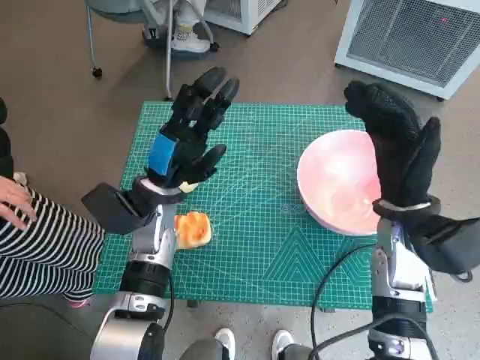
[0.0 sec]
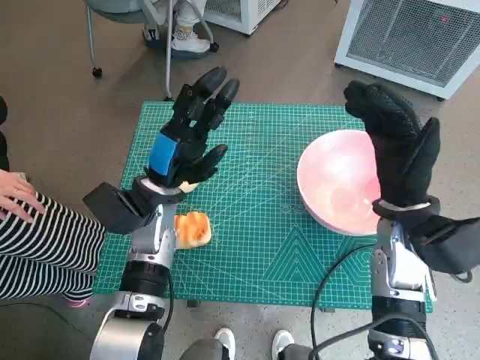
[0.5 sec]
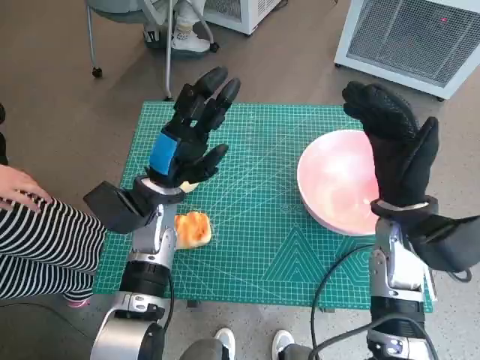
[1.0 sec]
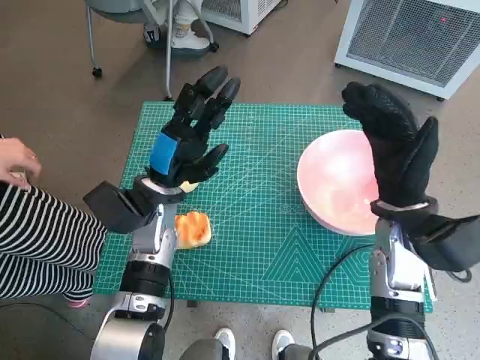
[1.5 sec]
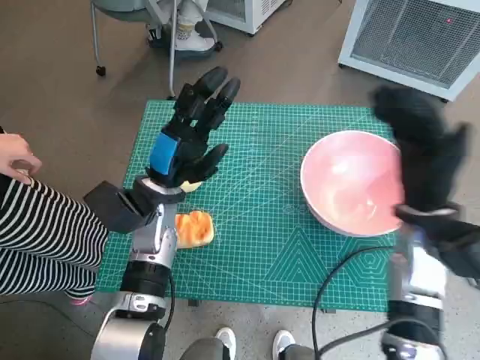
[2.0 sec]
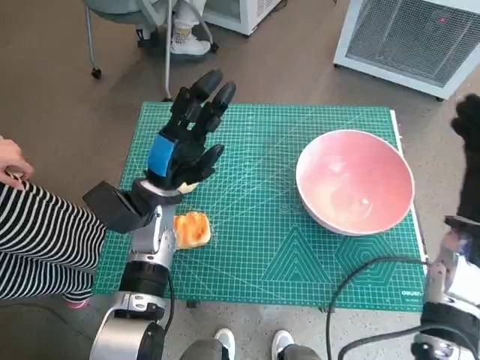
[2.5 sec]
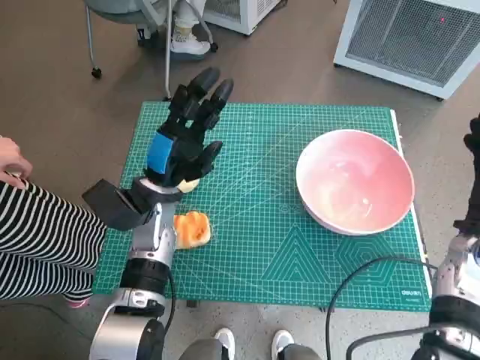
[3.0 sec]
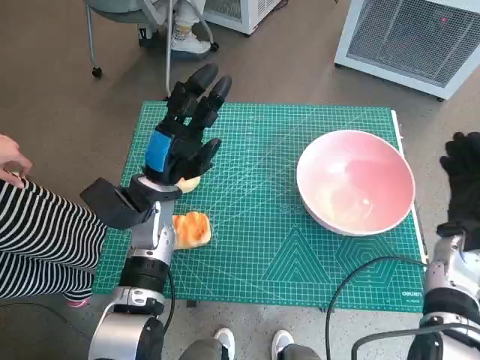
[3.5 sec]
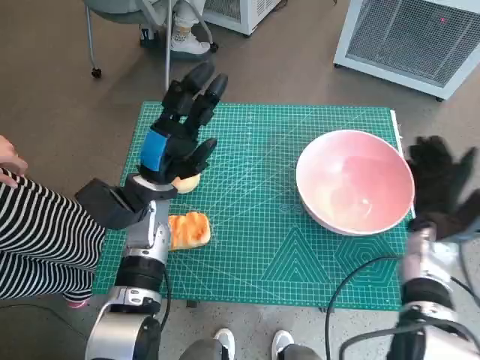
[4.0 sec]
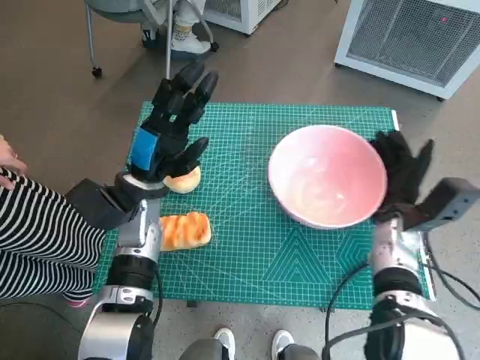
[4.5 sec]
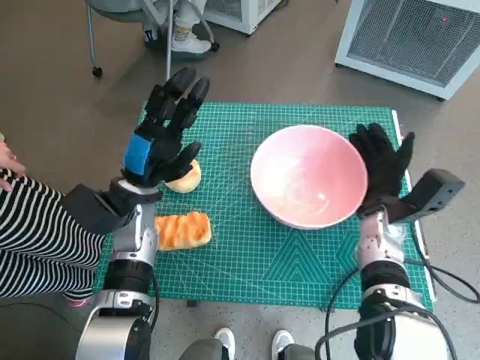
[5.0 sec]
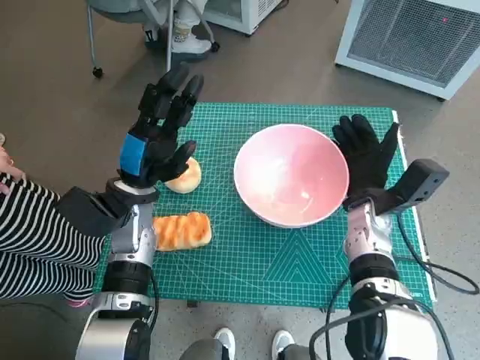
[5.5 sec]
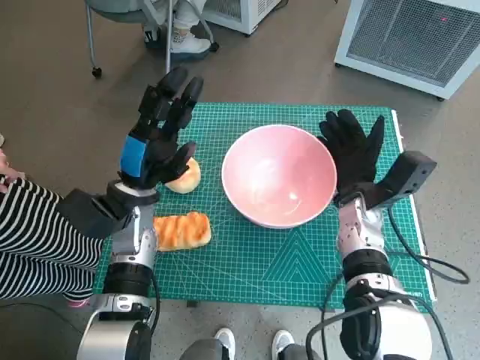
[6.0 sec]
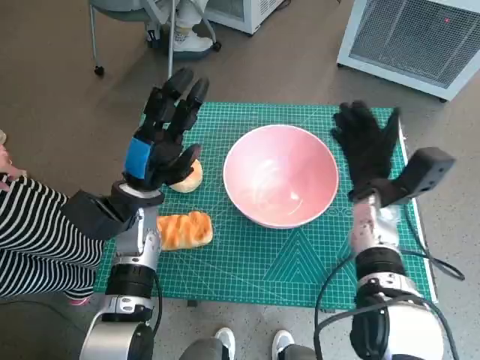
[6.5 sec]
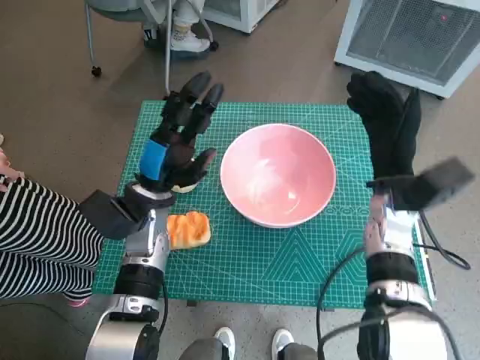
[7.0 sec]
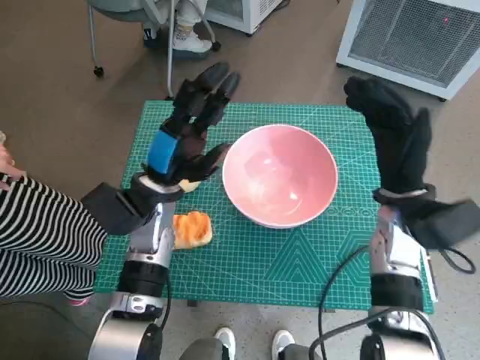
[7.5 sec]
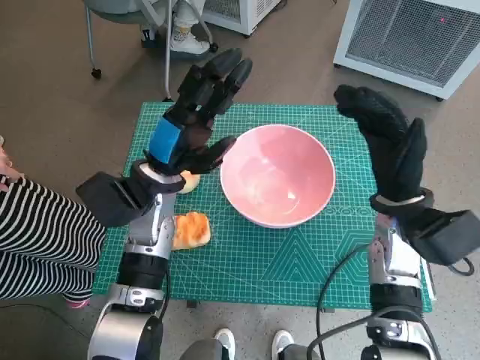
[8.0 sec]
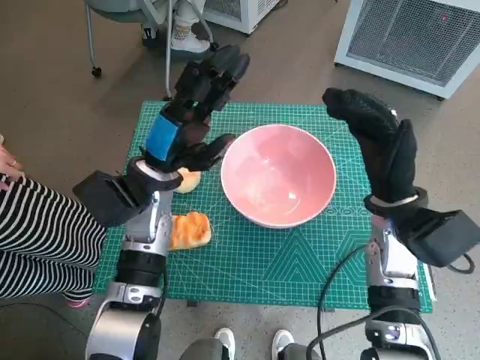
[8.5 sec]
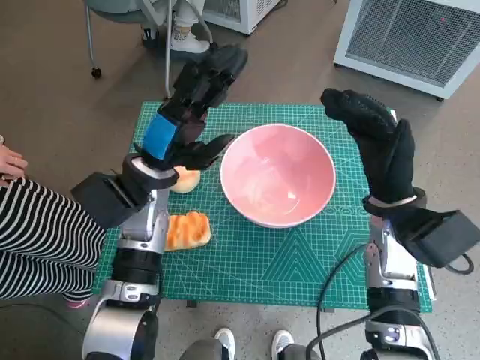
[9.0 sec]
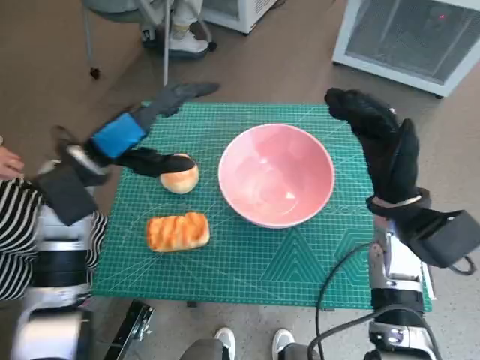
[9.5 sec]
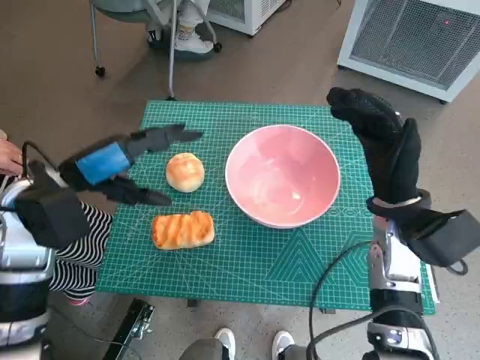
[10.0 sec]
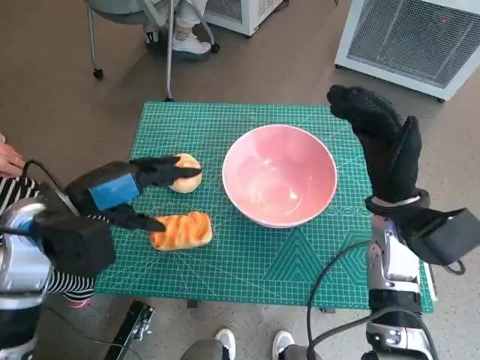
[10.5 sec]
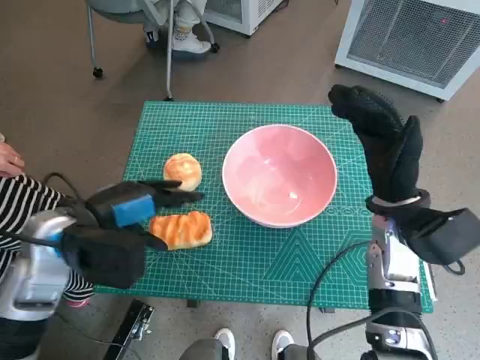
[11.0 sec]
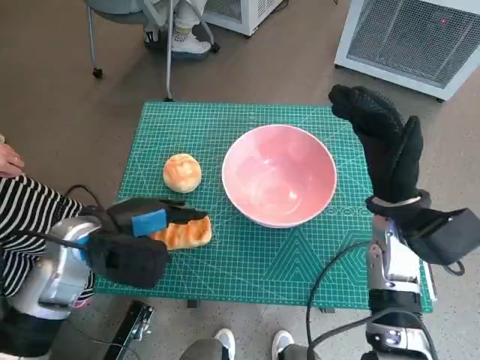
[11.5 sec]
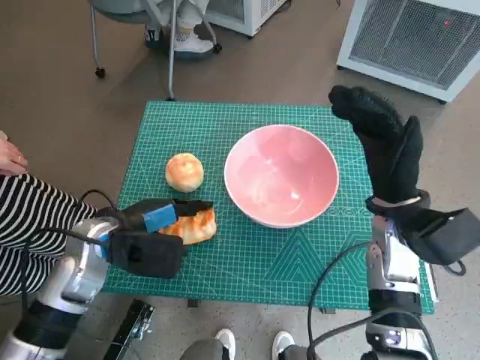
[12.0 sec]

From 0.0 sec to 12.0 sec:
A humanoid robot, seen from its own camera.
Task of the whole recording: Push the bowl into the center of the table and put the bread into the bowl.
Step, from 0.0 sec to 6.5 sec: Move the pink bowl to the center of table with right hand.
From 2.0 sec to 4.0 sec: The right hand is displaced downward and to the right by roughly 10 cm.
From 4.0 sec to 6.0 sec: The right hand is displaced to the left by some 10 cm.
From 6.0 sec to 8.0 sec: The right hand is displaced upward by about 5 cm, while the left hand shifts by some 5 cm.
From 8.0 sec to 10.0 sec: The left hand shifts some 10 cm to the left and upward.
From 10.0 sec to 12.0 sec: The left hand travels downward by roughly 10 cm.

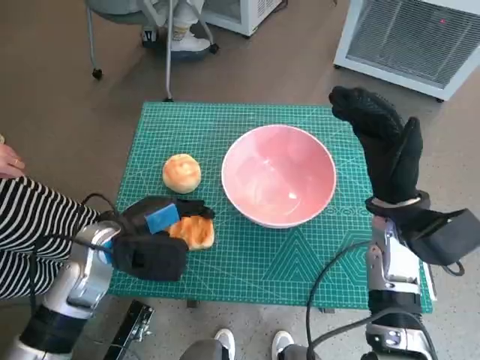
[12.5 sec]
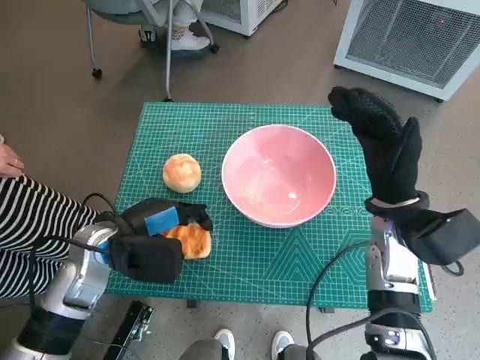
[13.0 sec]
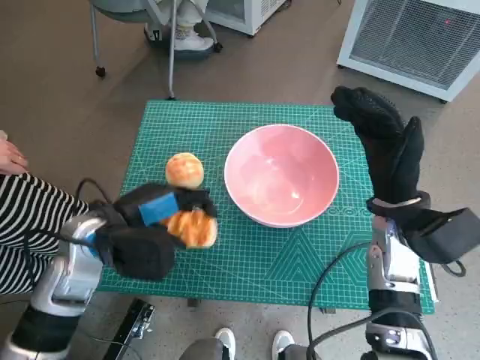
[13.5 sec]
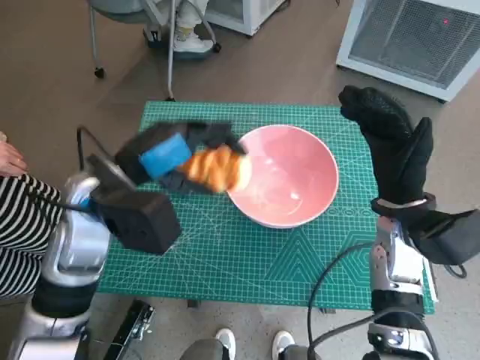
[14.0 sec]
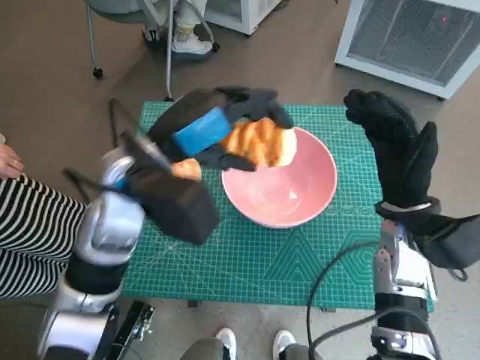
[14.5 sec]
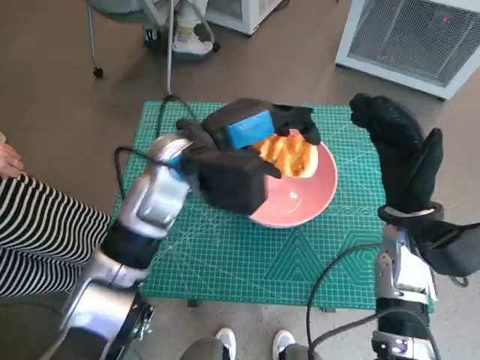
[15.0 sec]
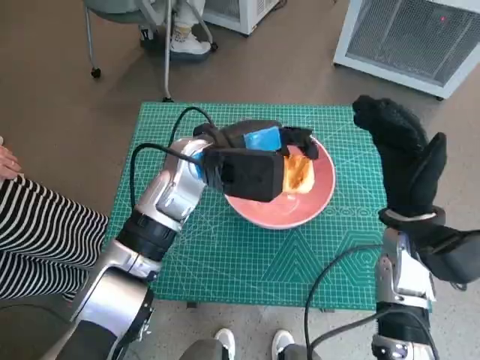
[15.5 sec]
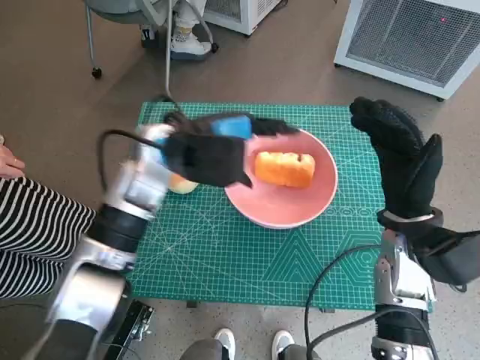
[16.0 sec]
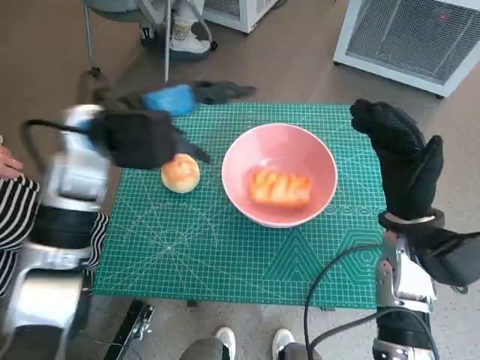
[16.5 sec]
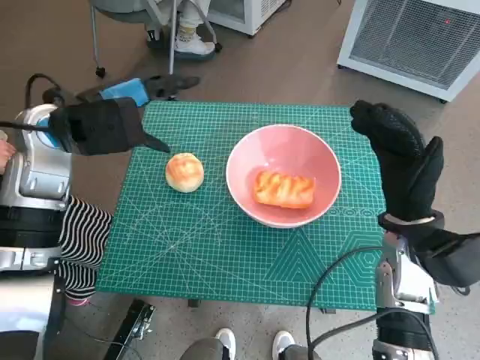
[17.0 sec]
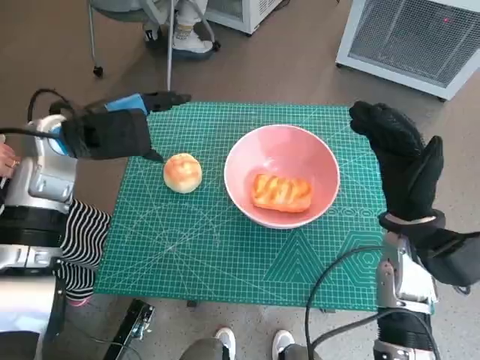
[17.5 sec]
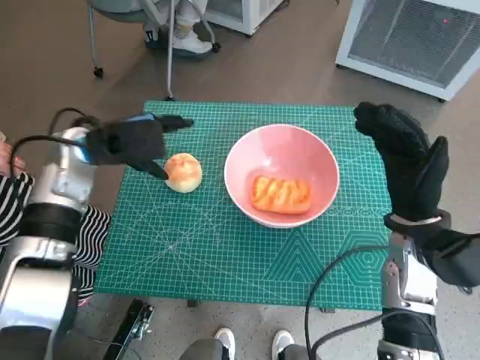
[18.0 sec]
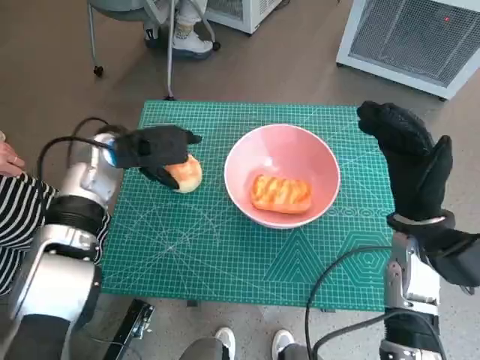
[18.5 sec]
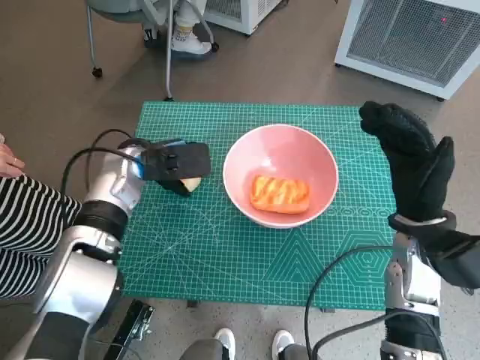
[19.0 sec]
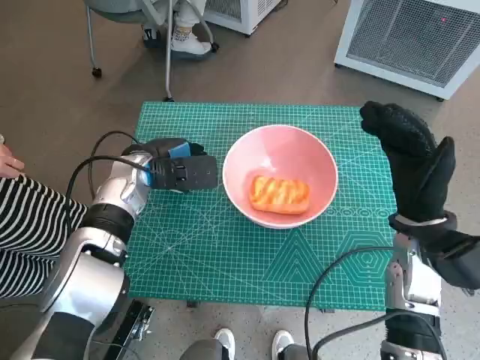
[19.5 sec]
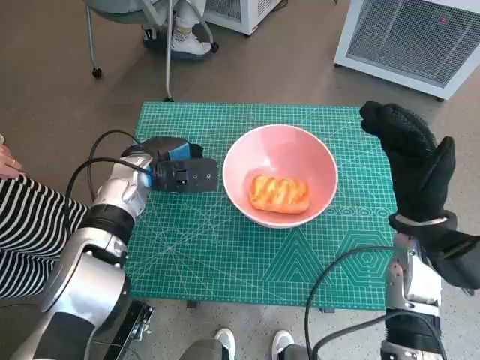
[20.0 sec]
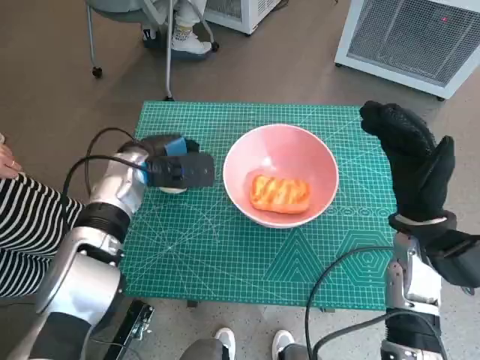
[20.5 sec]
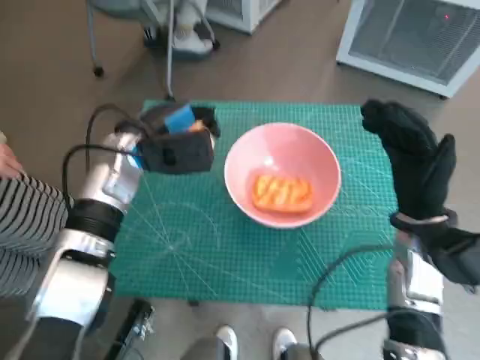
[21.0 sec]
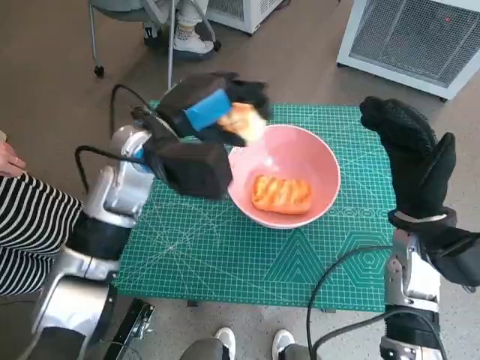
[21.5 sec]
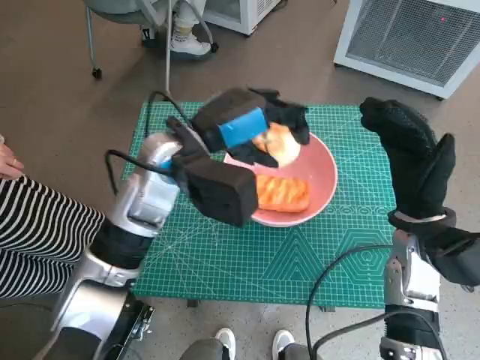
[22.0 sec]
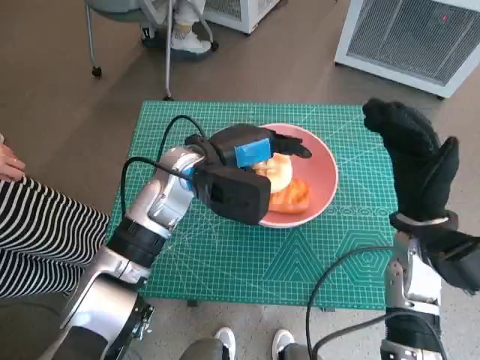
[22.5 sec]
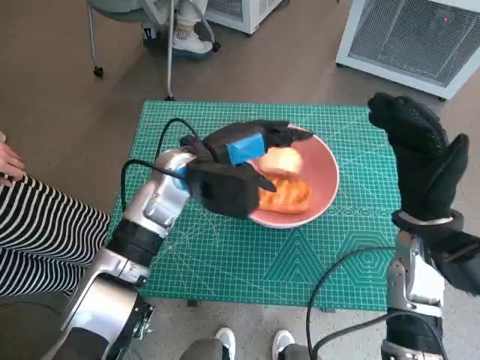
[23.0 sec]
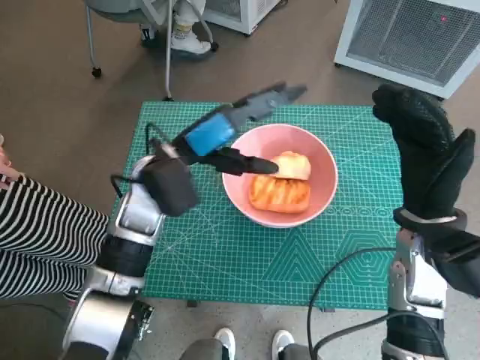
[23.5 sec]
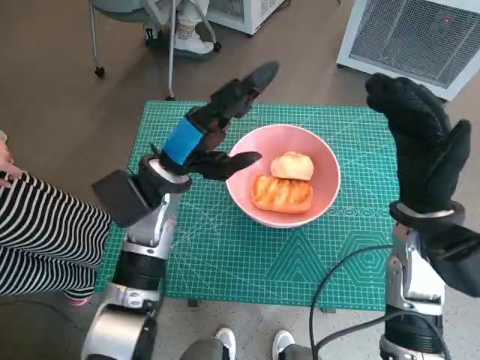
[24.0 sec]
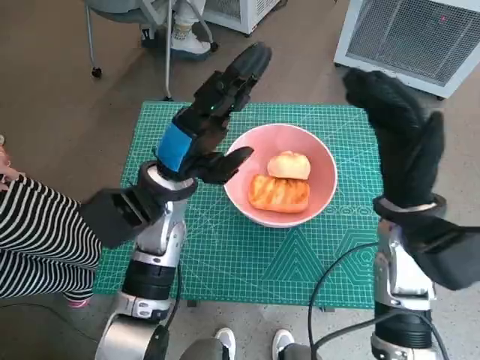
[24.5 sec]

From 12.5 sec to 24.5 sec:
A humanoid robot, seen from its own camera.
Task of the whole recording: Push the bowl into the center of the table and put the bread into the bowl.
Step, from 13.0 sec to 16.0 sec: Place the long bread in pink bowl with left hand.
Step, from 16.5 sec to 19.5 sec: Grasp the round bread with left hand.
Step, from 20.0 sec to 23.0 sec: Place the round bread in pink bowl with left hand.
From 12.5 sec to 14.5 sec: The left hand travels upward and to the right by about 15 cm.
From 14.5 sec to 16.5 sec: The left hand ends up roughly 5 cm from where it was.
From 16.5 sec to 18.5 sec: The left hand moves downward, some 10 cm.
From 18.5 sec to 20.5 sec: There are only small adjustments of the hands.
From 20.5 sec to 22.5 sec: The left hand is displaced to the right by roughly 10 cm.
From 22.5 sec to 24.5 sec: The right hand ends up roughly 5 cm from where it was.

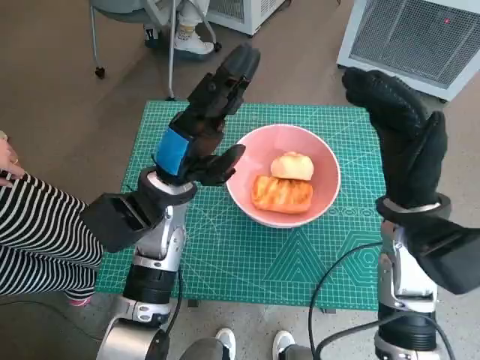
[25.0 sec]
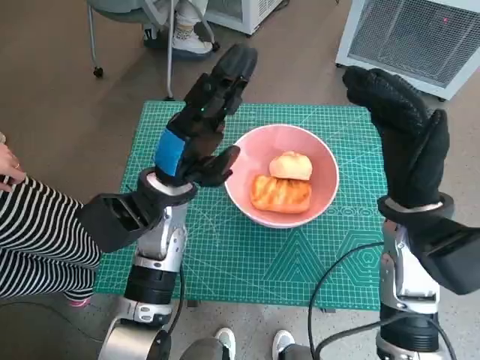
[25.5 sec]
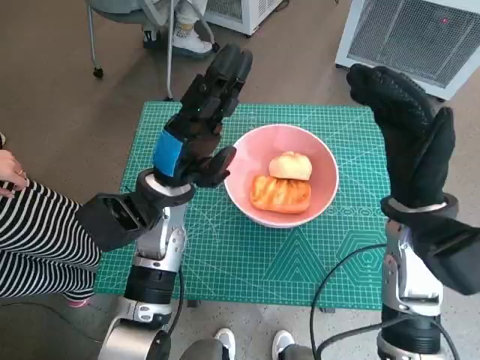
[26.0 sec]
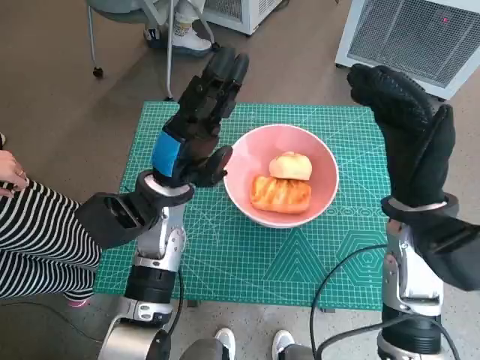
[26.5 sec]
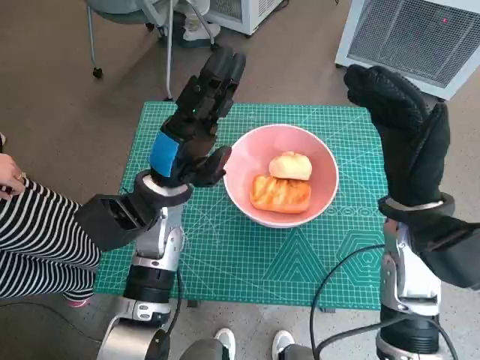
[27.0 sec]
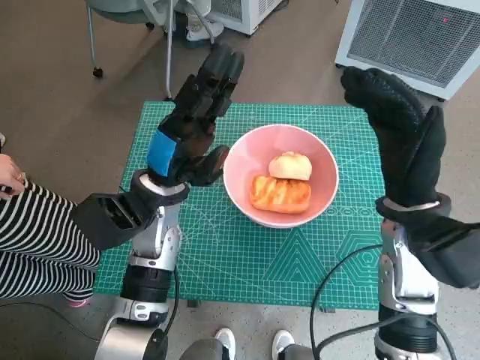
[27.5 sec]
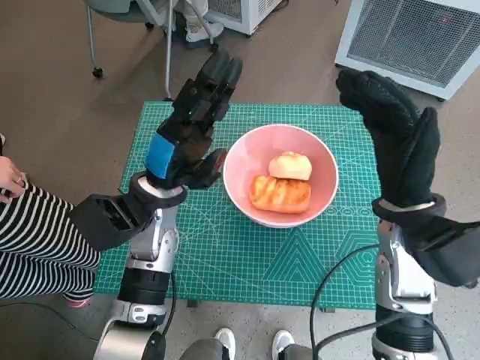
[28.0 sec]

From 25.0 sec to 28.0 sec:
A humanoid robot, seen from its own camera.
Task of the whole recording: Push the bowl into the center of the table and put the bread into the bowl.
From 25.0 sec to 26.5 sec: Both hands stay put.
From 26.5 sec to 28.0 sec: Both hands stay put.
